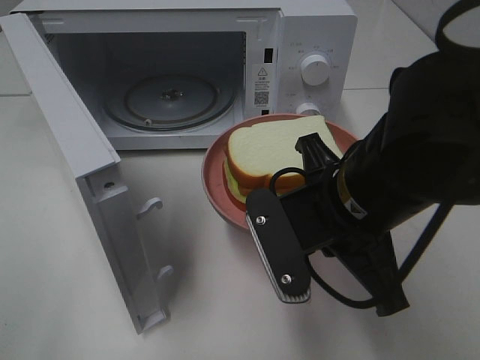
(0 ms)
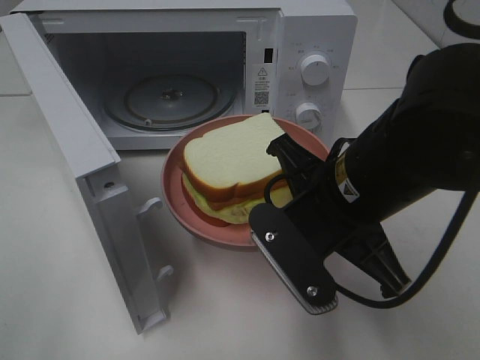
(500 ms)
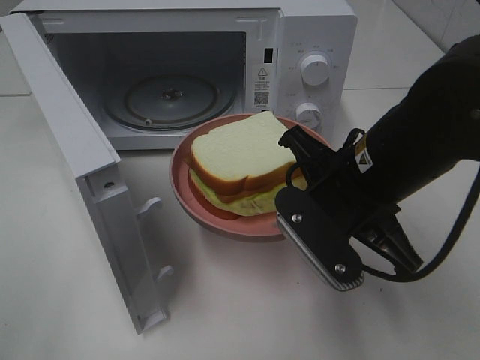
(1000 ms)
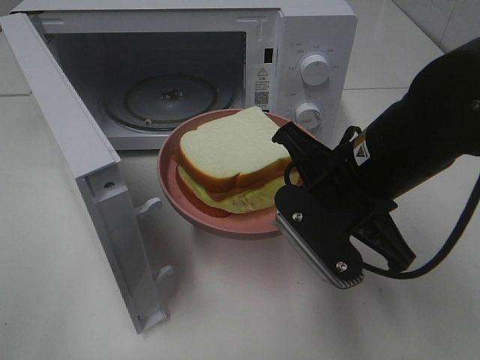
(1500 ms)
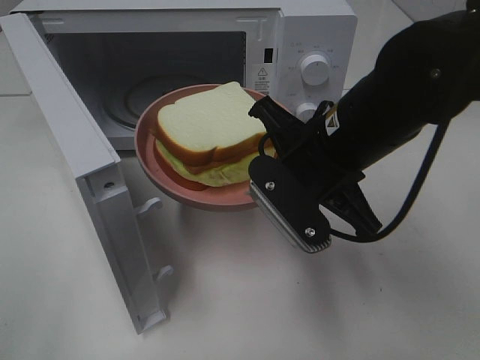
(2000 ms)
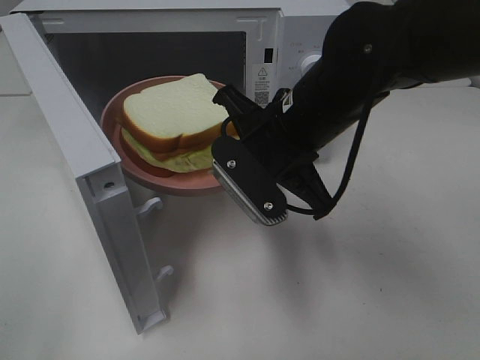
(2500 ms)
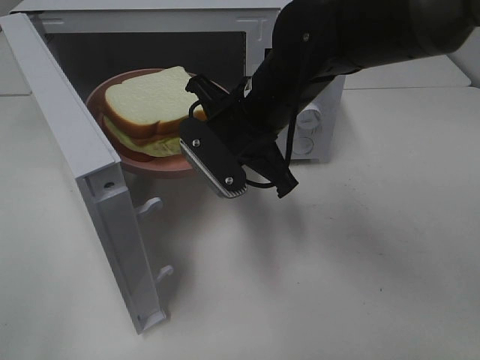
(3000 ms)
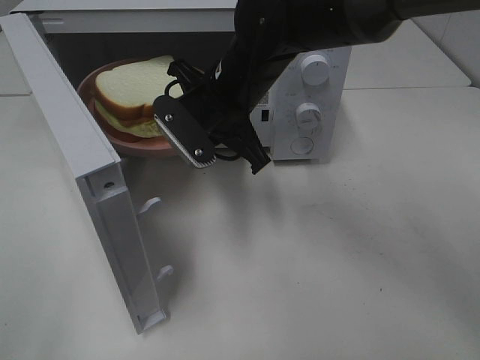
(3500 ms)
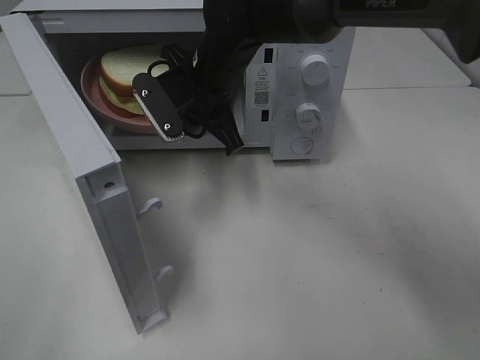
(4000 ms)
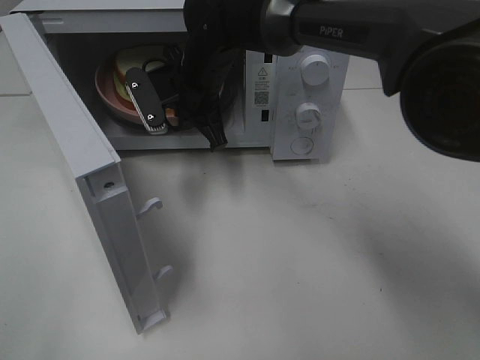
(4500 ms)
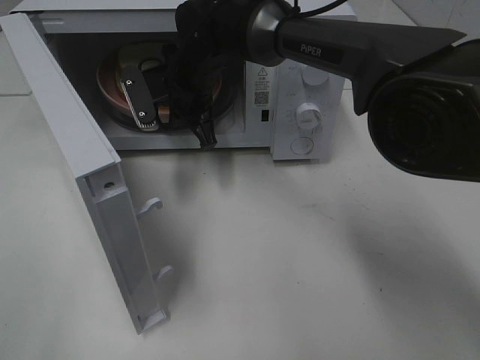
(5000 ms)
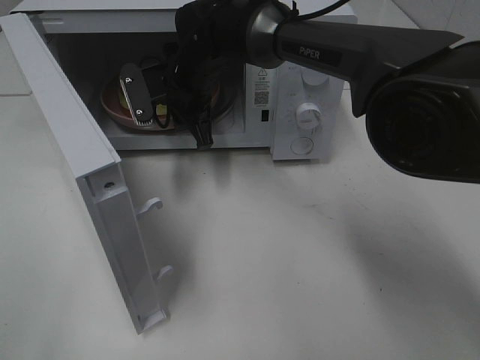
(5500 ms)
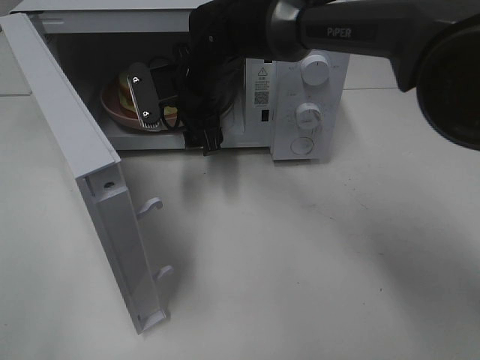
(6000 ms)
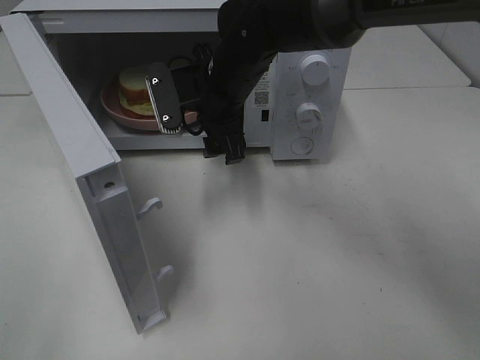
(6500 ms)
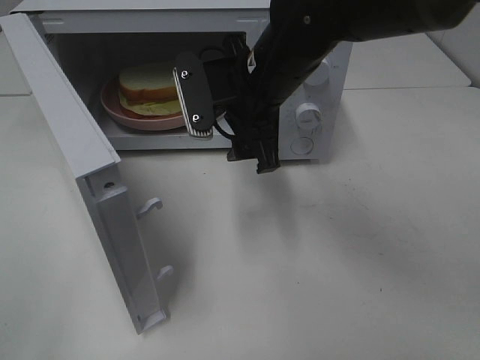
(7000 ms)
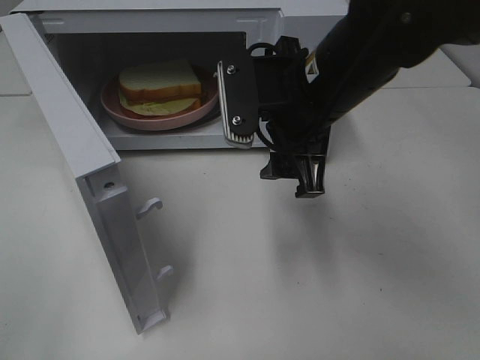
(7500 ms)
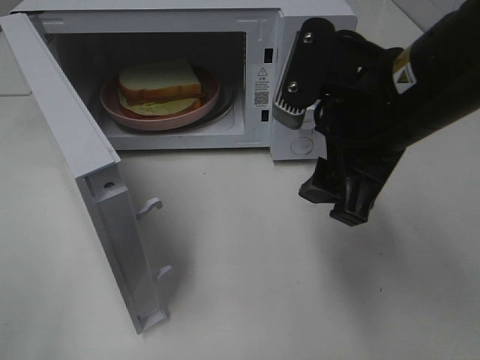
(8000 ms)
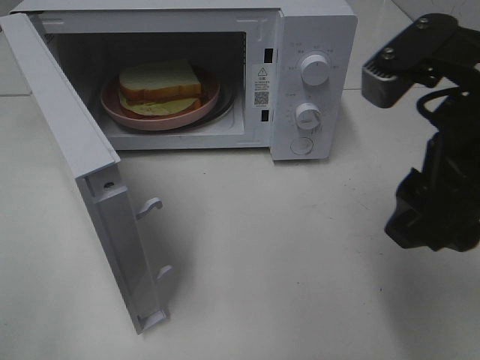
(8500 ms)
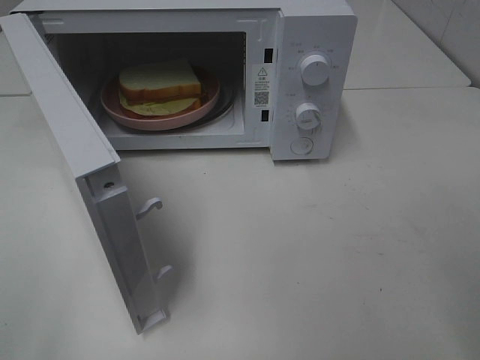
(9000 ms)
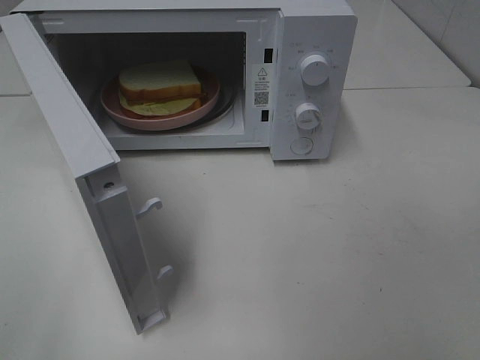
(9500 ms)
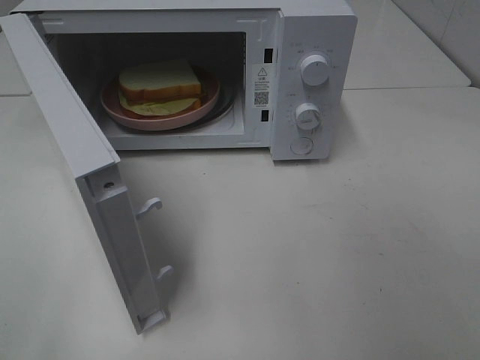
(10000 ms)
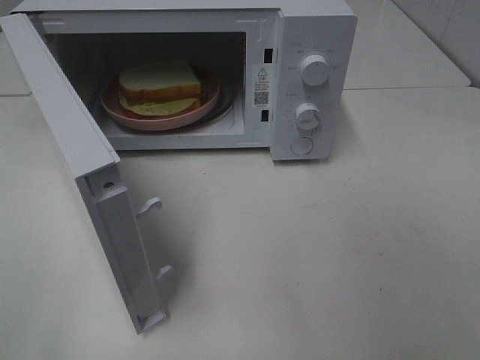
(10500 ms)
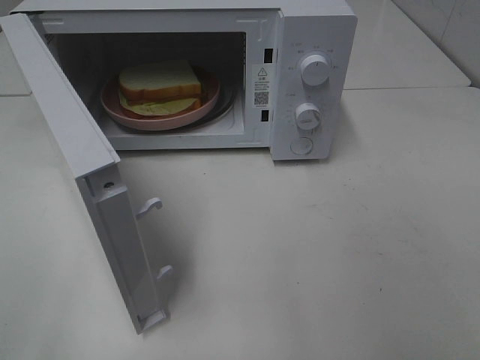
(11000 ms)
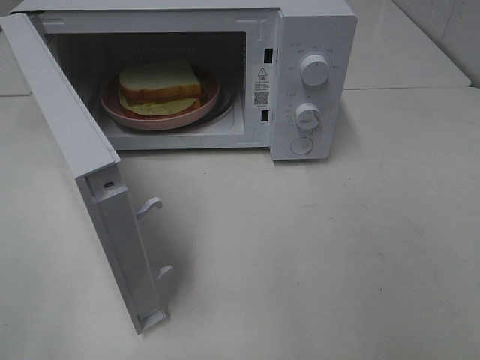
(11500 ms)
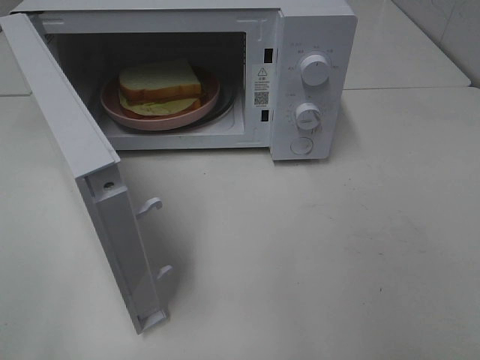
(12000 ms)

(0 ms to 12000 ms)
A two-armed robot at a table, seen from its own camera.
Task of the whole recording: Heat Sandwich.
Step, 0 ms - 6500 ms: Right hand: place the plate in the microwave.
0 ms - 2000 ms: The right gripper shifts approximately 5 cm forward.
2000 ms - 4000 ms: The right gripper shifts some 20 cm forward and to the left.
4000 ms - 6000 ms: The right gripper opens.
6000 ms - 8000 ms: The right gripper shifts approximately 25 cm backward, to the right and upward.
8000 ms - 10000 ms: The right gripper moves backward and to the right, about 25 cm.

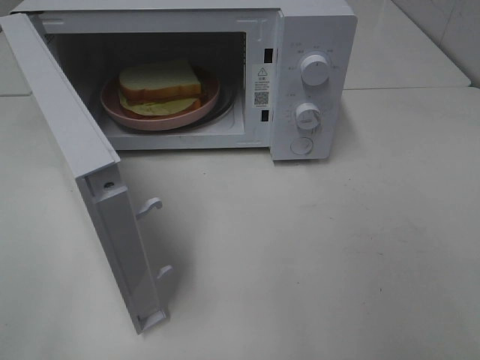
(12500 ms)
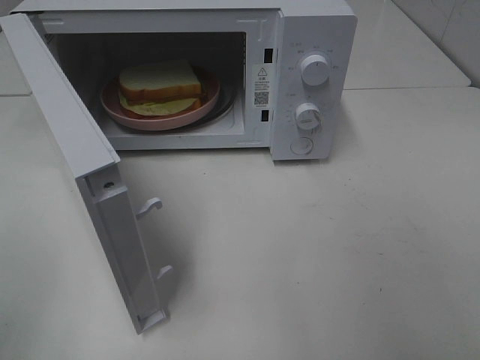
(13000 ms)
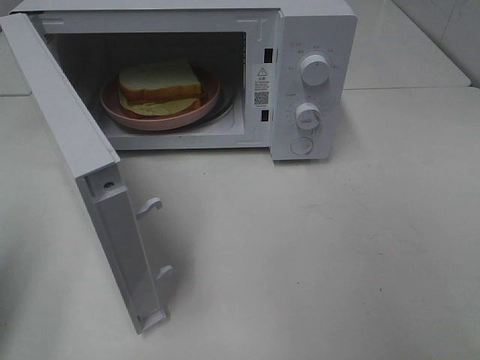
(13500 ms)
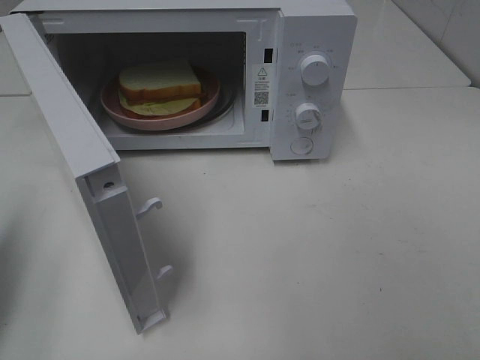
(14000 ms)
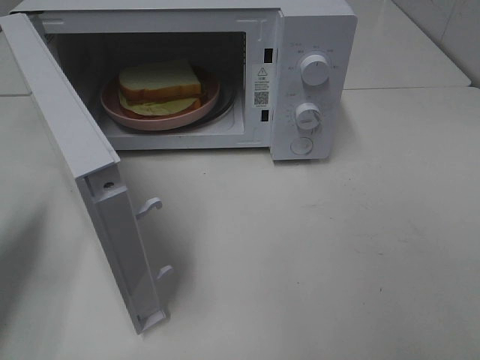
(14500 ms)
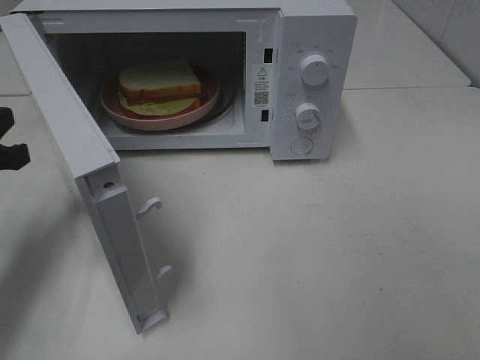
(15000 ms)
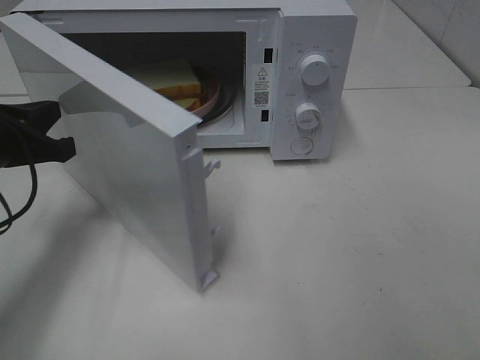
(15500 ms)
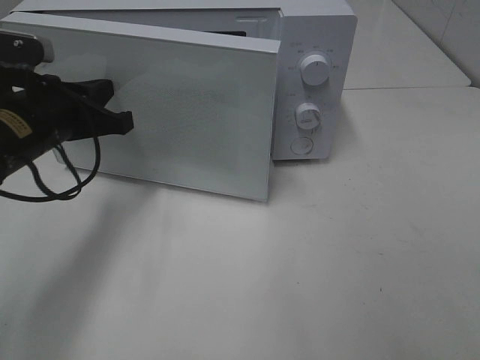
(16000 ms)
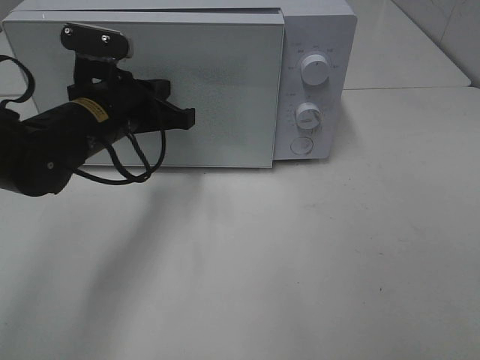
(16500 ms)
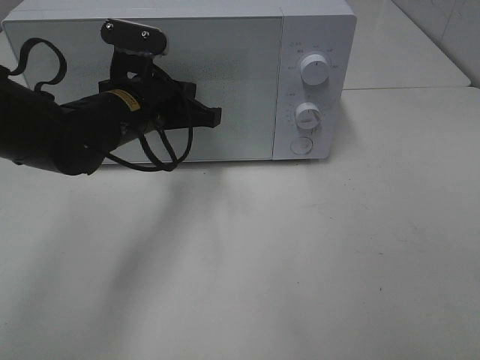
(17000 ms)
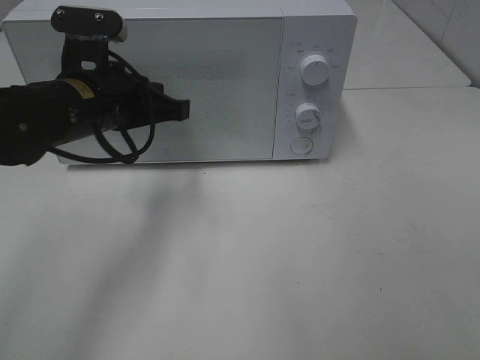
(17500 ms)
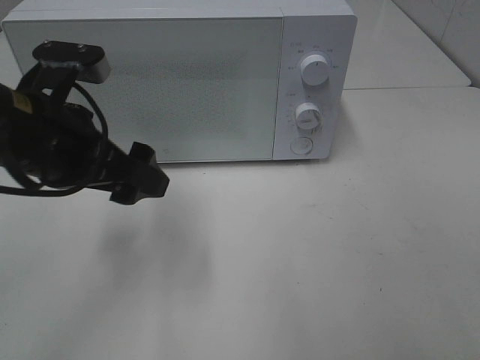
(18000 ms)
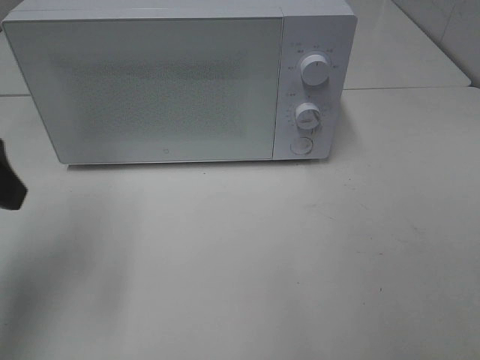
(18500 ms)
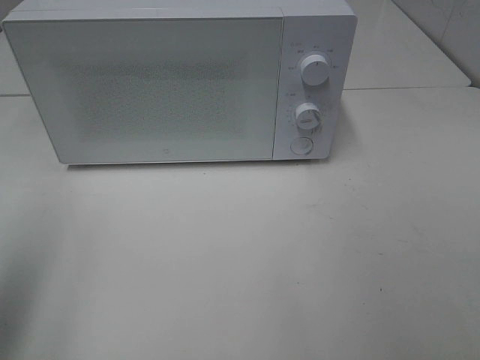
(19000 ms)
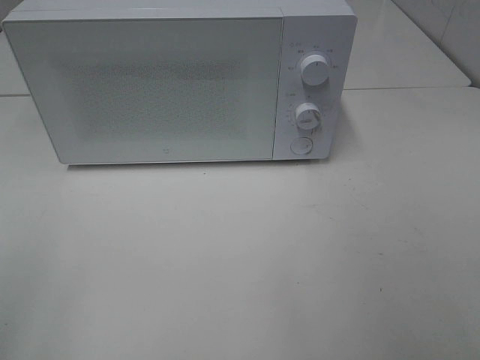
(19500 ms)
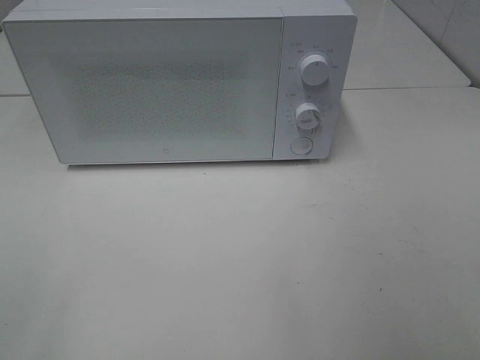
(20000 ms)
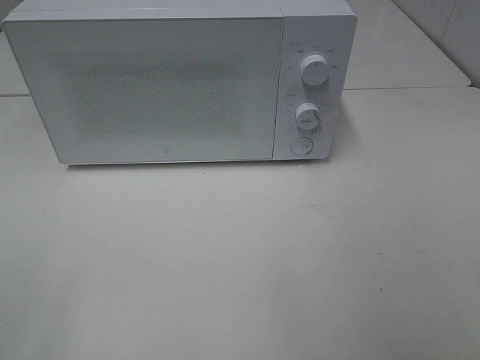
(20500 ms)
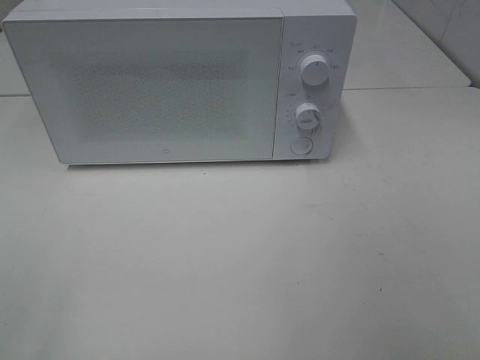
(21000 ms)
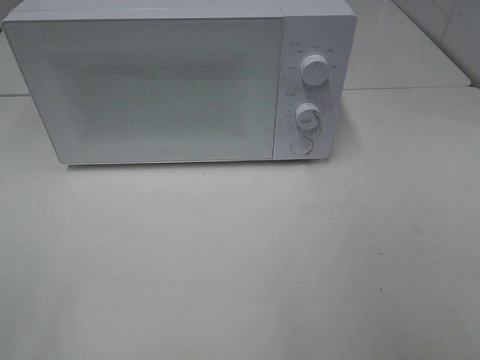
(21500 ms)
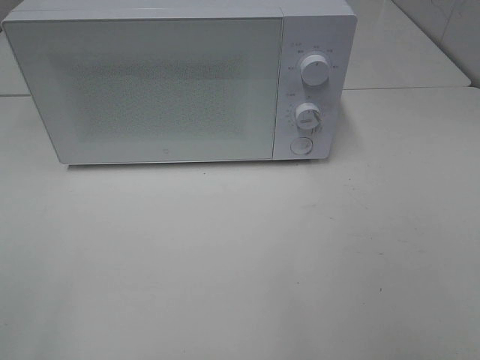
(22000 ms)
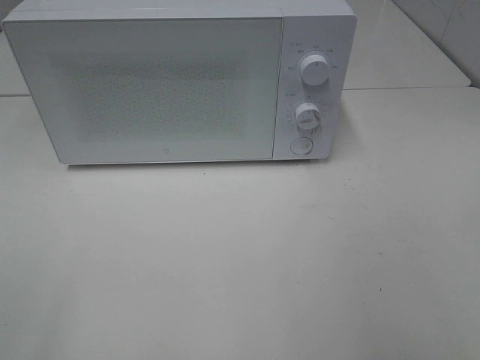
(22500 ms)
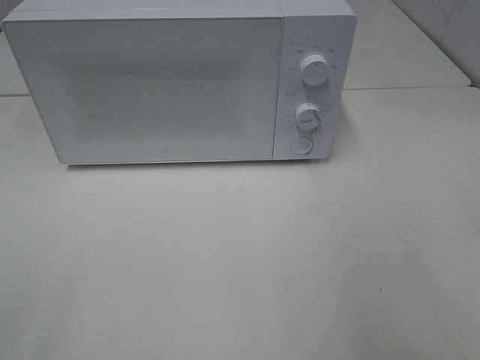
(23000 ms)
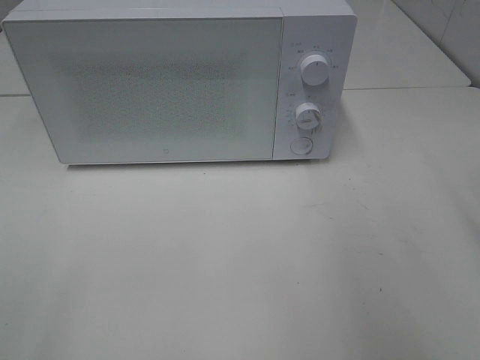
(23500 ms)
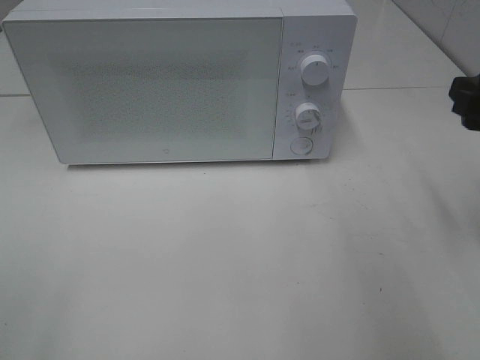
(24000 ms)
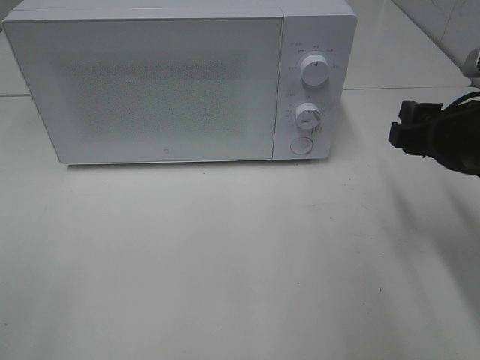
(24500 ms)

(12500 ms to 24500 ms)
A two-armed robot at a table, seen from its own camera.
Task of the whole recording: Heat Sandwich.
Step, 12500 ms - 17000 ms: Left hand: close the microwave door.
12500 ms - 14500 ms: The left gripper travels forward by roughly 20 cm, and closes up.
14500 ms - 16500 ms: The left gripper goes approximately 20 cm to the right and forward.
16500 ms - 18500 ms: The left gripper shifts some 20 cm to the left, backward and upward, and opens up.
18500 ms - 20500 ms: The left gripper shifts about 20 cm backward.
22500 ms - 24500 ms: The right gripper shifts some 20 cm forward and downward.

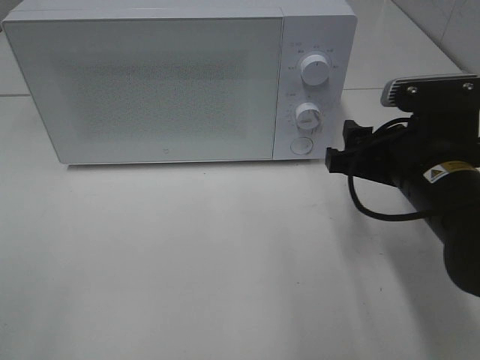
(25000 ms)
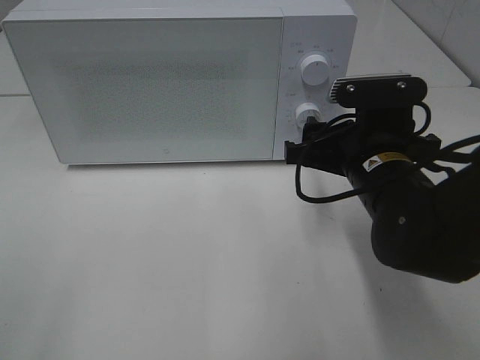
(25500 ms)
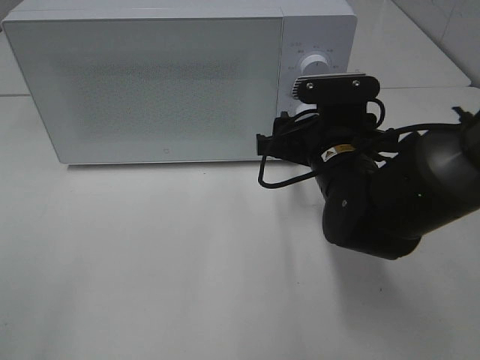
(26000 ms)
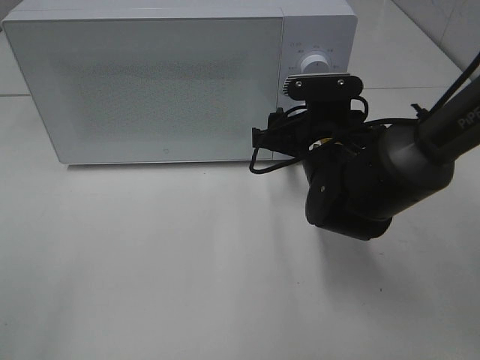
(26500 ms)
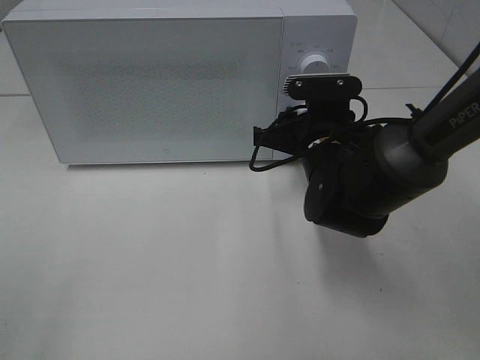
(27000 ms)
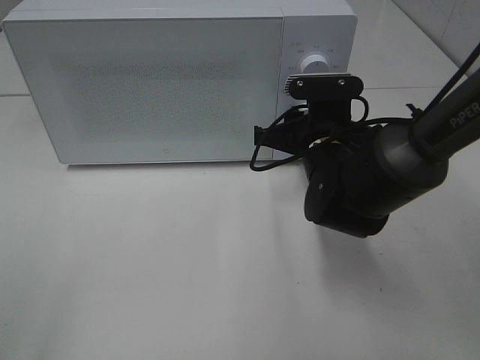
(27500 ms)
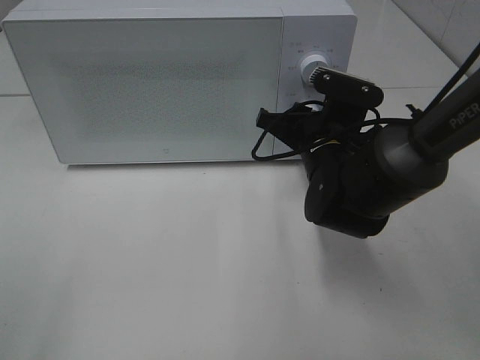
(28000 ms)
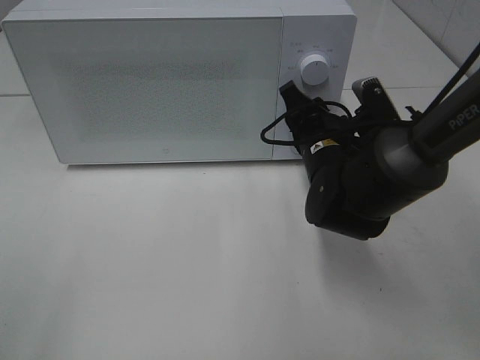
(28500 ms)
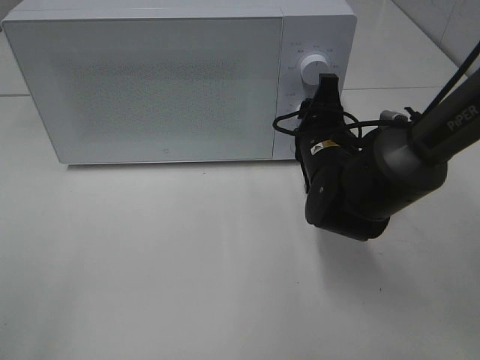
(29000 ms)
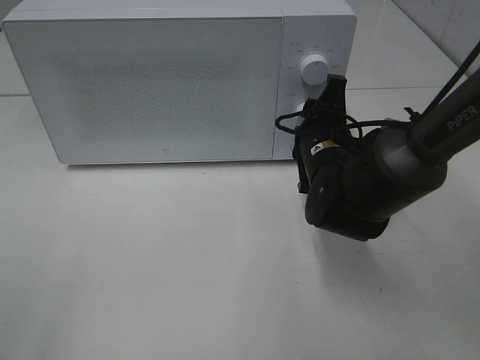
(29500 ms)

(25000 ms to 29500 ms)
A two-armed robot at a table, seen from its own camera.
Task of the whole recording: Heat Sandwich.
25000 ms - 27000 ms: The right gripper travels forward, to the left and downward by roughly 15 cm.
